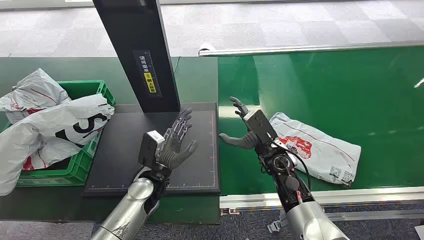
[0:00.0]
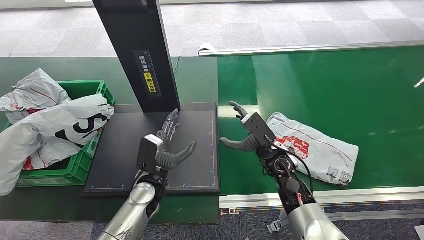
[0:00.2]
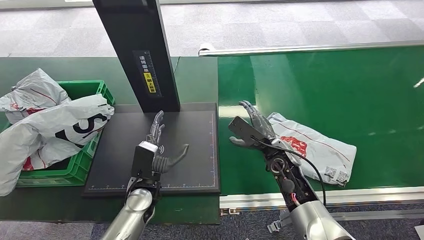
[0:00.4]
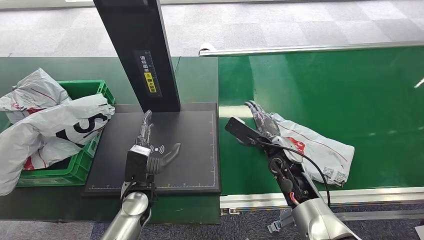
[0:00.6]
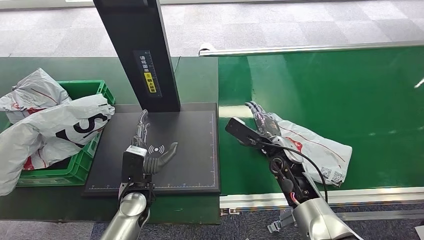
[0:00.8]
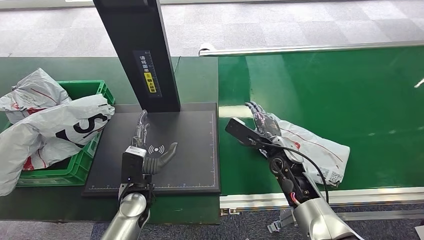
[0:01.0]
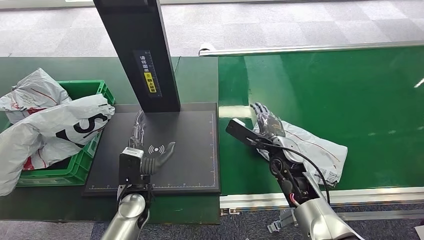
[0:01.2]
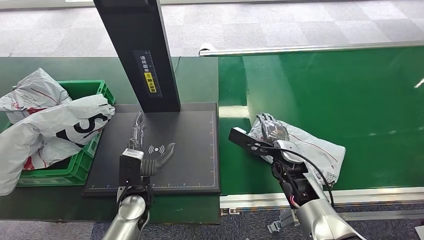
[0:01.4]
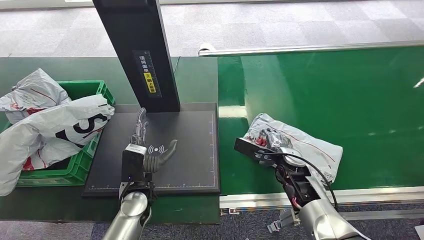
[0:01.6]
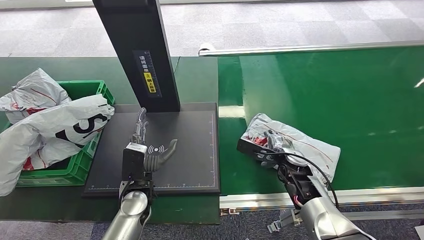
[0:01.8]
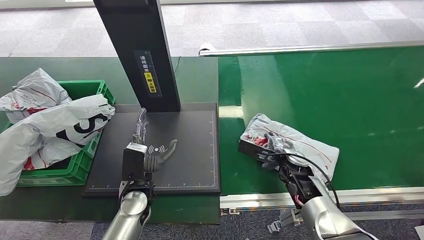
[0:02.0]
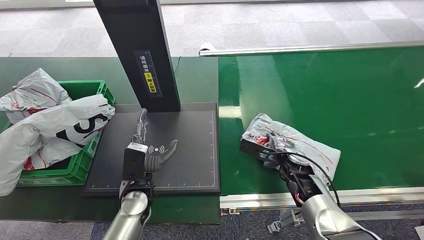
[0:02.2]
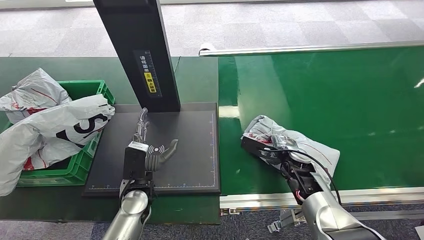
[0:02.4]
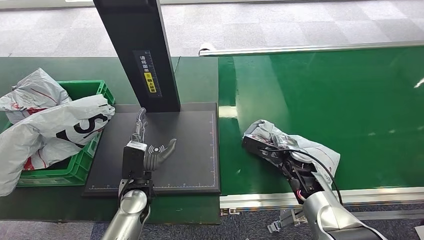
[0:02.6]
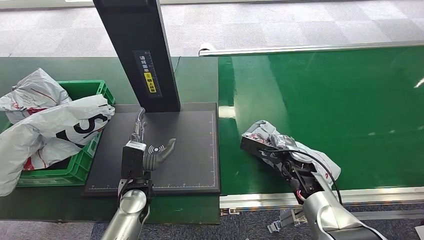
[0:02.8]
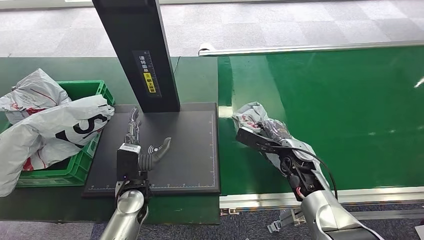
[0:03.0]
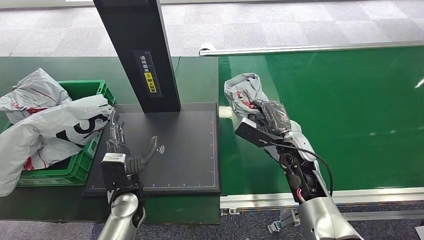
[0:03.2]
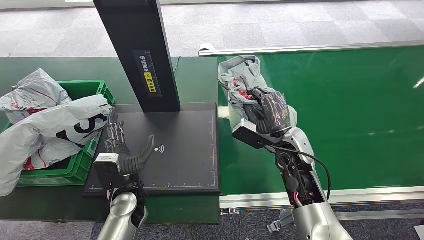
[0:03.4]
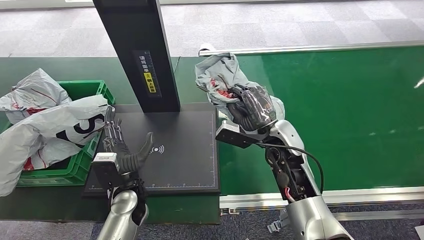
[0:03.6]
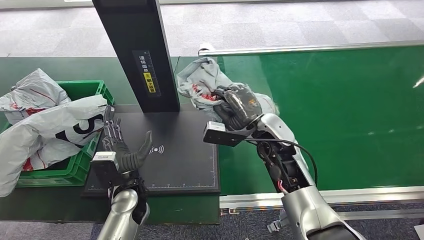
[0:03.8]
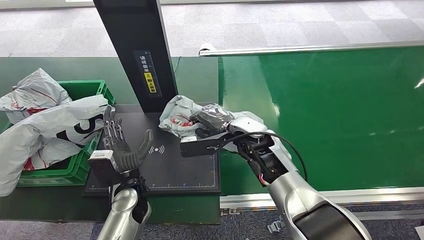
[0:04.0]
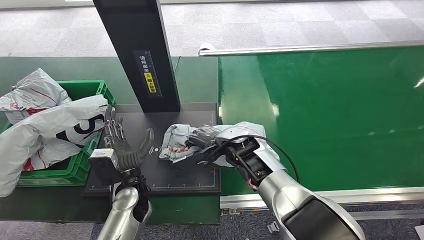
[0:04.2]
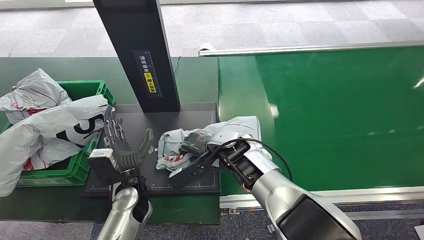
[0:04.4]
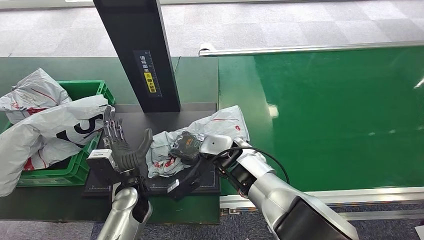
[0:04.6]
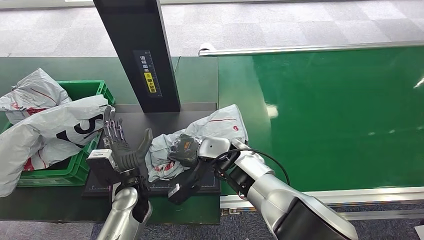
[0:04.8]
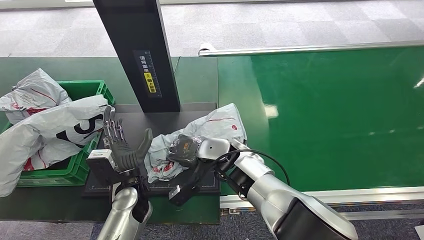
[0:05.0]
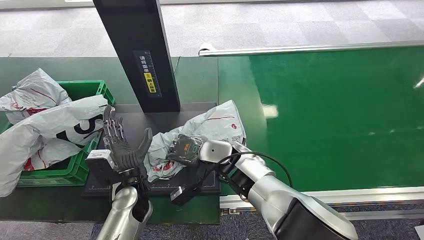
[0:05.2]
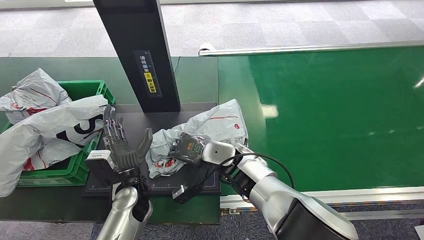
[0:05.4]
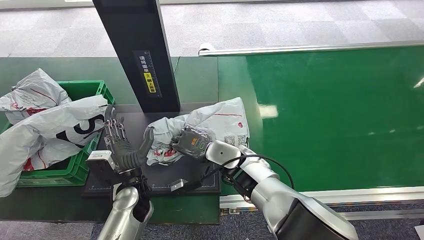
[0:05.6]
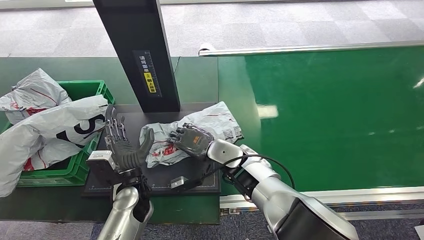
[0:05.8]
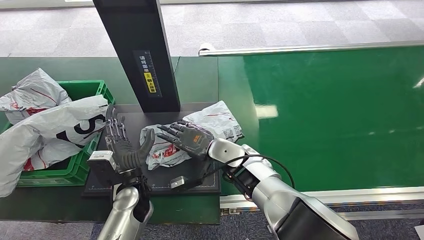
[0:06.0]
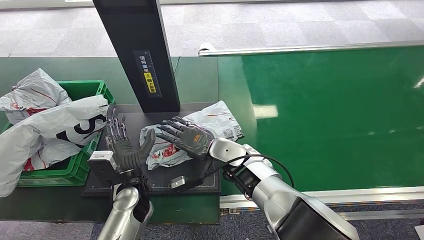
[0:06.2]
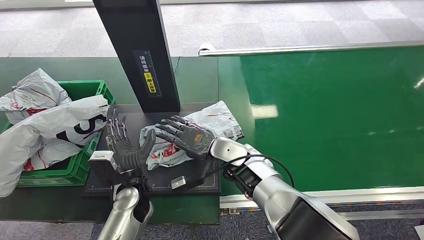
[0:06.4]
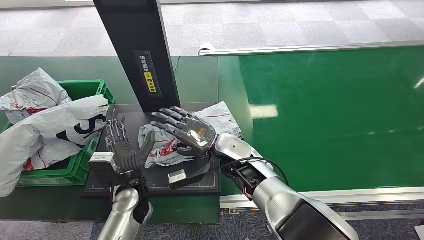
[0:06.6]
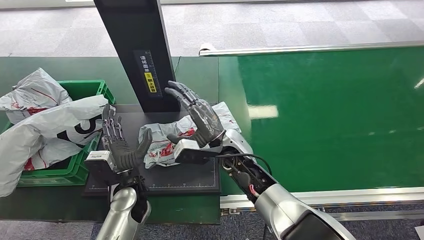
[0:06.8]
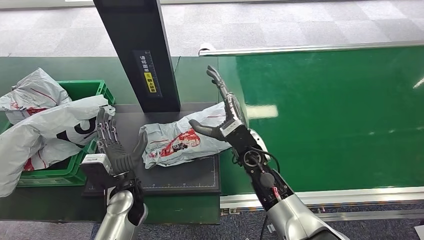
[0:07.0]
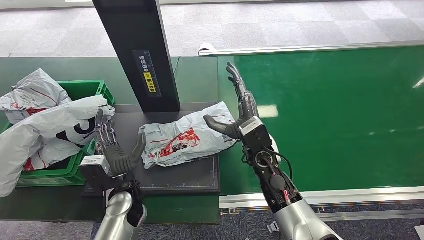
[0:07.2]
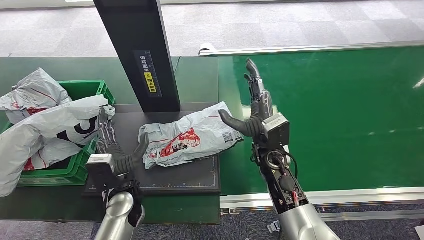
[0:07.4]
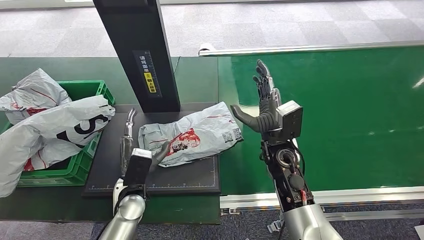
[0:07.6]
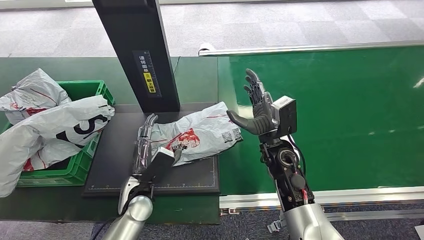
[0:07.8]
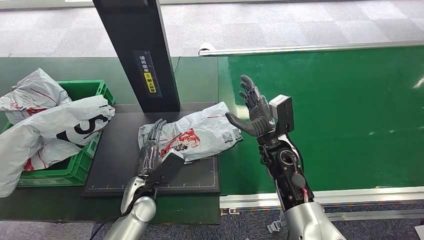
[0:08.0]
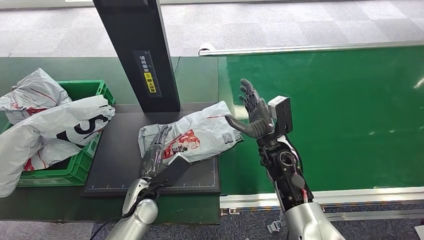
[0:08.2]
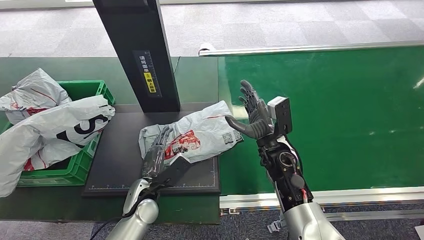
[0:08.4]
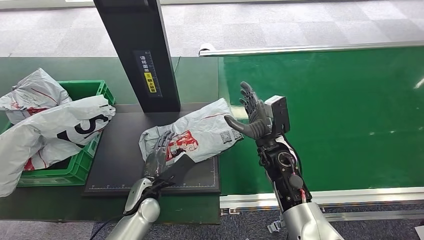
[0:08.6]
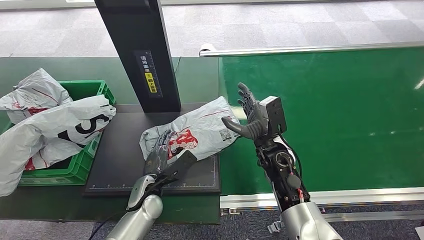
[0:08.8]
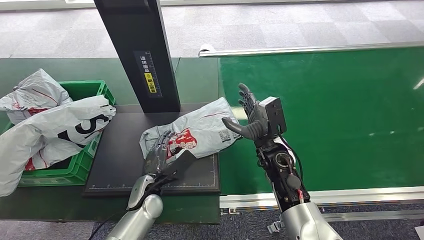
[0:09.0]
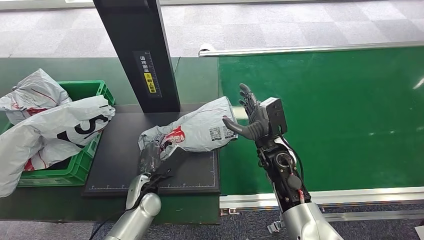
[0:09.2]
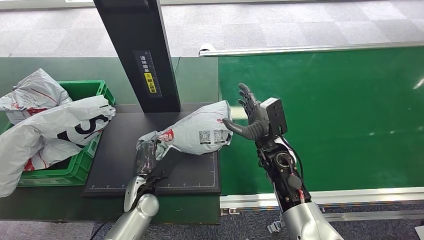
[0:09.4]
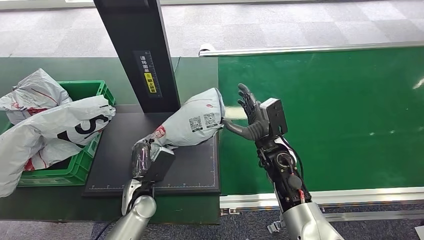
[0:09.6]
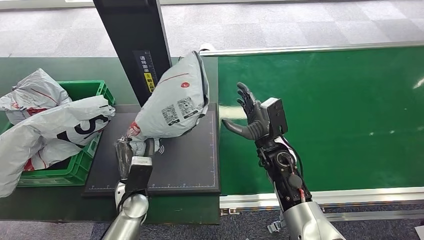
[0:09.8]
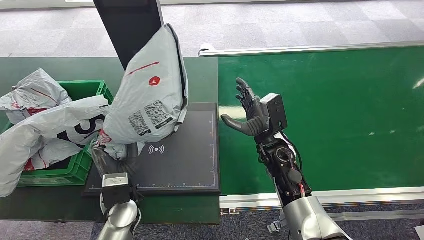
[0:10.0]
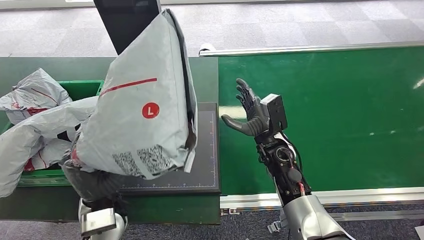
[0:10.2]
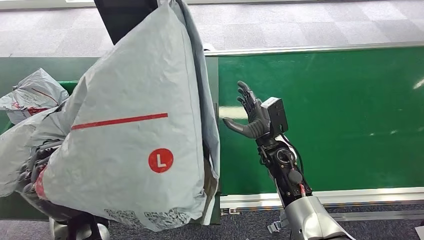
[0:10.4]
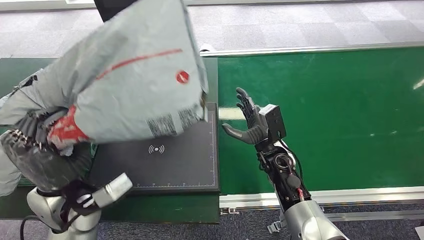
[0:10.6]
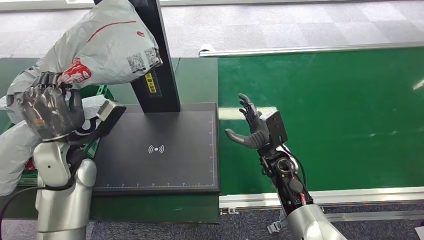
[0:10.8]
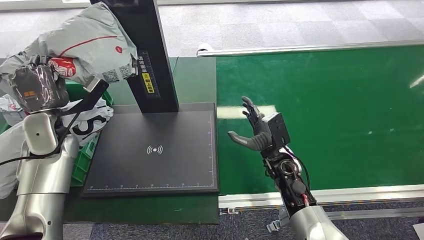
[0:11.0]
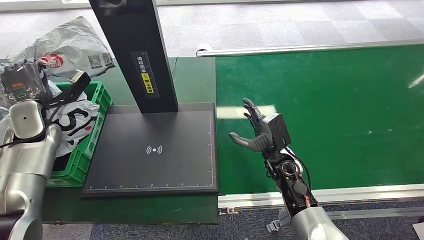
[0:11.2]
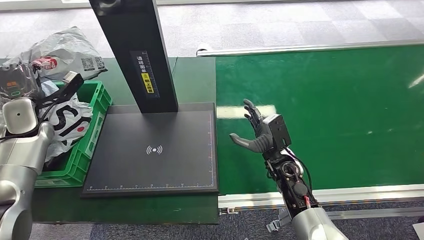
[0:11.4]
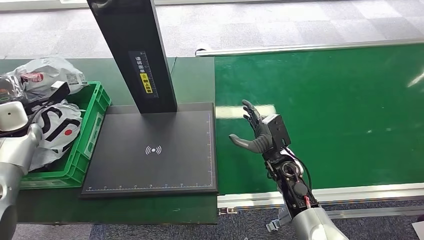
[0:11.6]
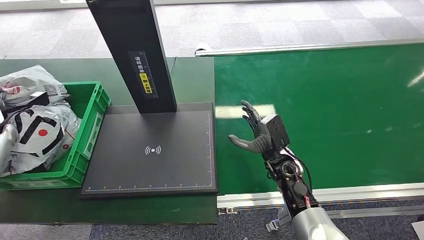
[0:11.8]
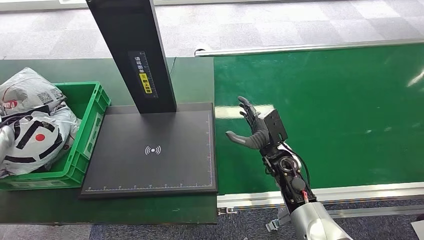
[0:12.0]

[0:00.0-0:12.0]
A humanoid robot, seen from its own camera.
Task of the whole recording: Weigh the package on the weighing device and place it in the left basket.
Step, 0:00.0 to 0:03.4: Pick up the package from the conveyor belt.
Step, 0:03.6 to 0:07.2: Place the package onto the inbound machine.
Step, 0:07.4 to 0:10.4: Pick up the package from the inbound machine.
0:01.6 to 0:03.0: The hands stay close to where they were, moving slightly.
0:03.0 to 0:04.4: The right hand heads to the left, covering about 20 cm.
0:06.0 to 0:07.6: The right hand is displaced to the right by roughly 10 cm.
0:07.6 to 0:09.0: The left hand moves approximately 5 cm.

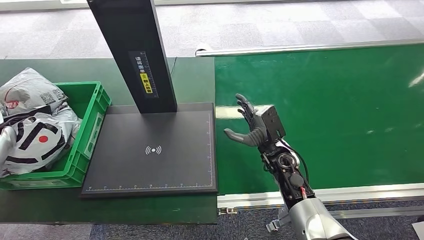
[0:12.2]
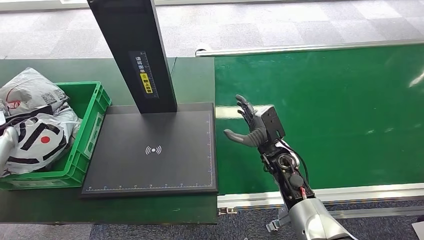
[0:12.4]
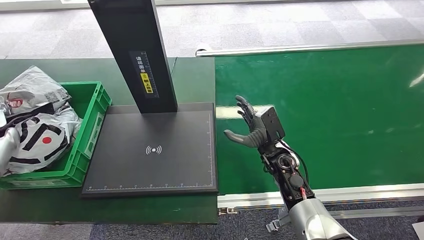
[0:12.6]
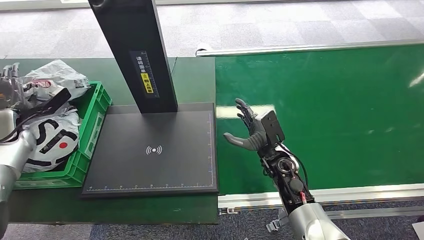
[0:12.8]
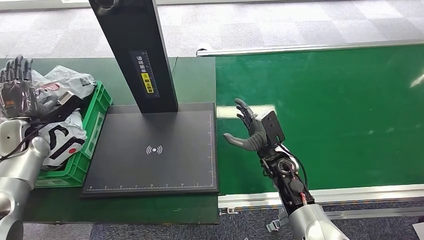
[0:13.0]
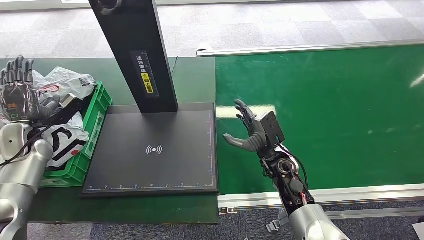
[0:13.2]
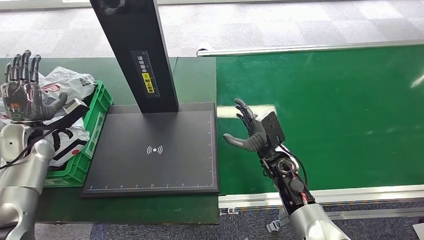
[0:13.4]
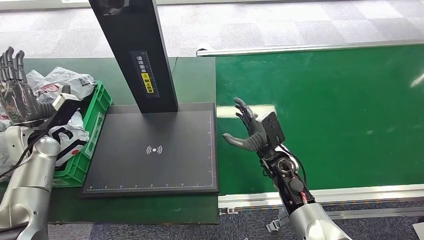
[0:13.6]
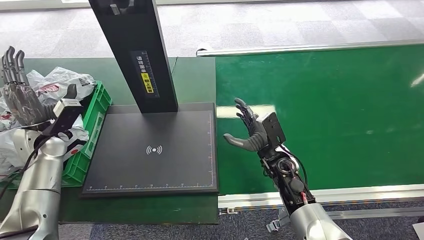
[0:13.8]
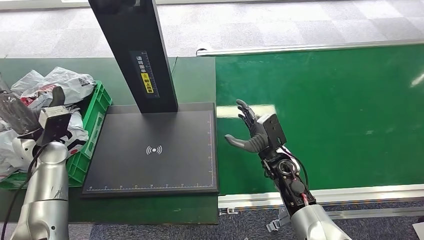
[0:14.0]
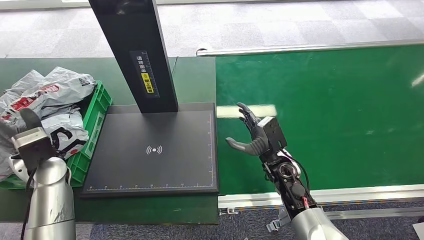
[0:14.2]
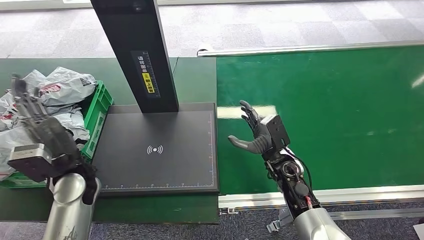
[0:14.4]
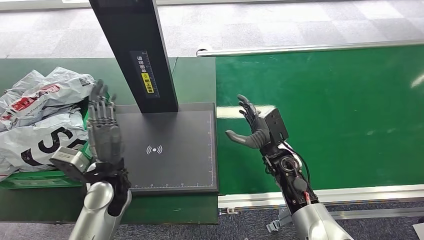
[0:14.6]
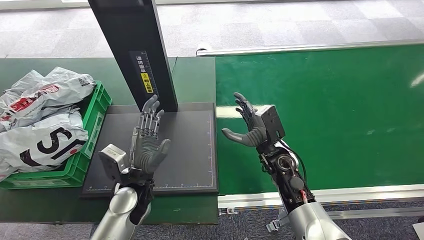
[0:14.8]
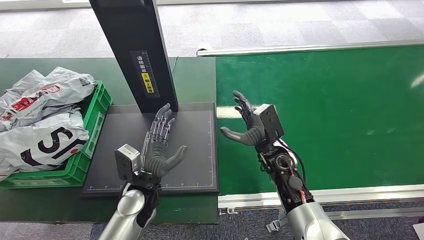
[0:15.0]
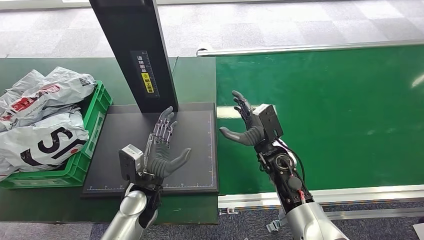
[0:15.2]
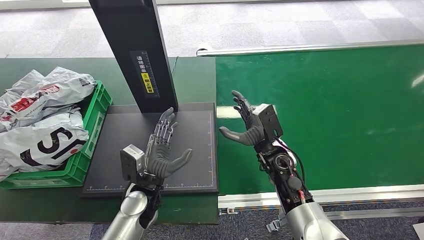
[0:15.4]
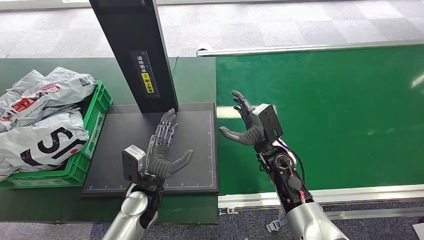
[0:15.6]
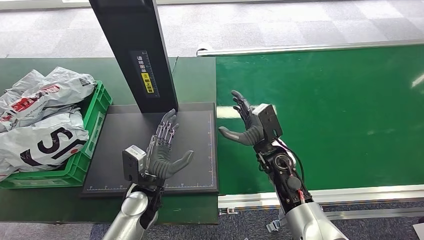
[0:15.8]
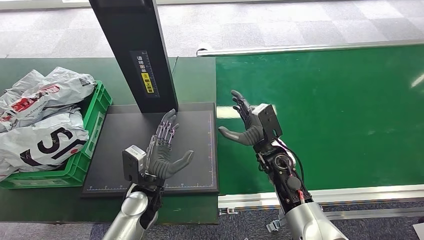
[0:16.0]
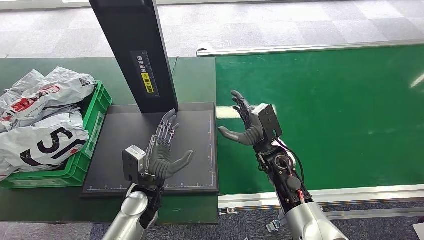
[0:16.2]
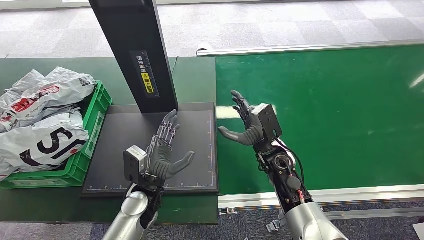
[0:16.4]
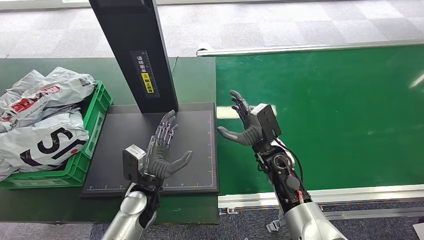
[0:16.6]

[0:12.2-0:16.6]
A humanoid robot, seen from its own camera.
Task of the whole recording: Weigh the package on the weighing device and place it in the left basket.
Step, 0:12.2 to 0:16.6: Place the package into the parcel locker.
0:12.2 to 0:13.6: The left hand travels to the right by roughly 10 cm.
0:13.6 to 0:15.2: The left hand travels to the right by some 30 cm.
0:15.2 to 0:16.6: Both hands stay put.
